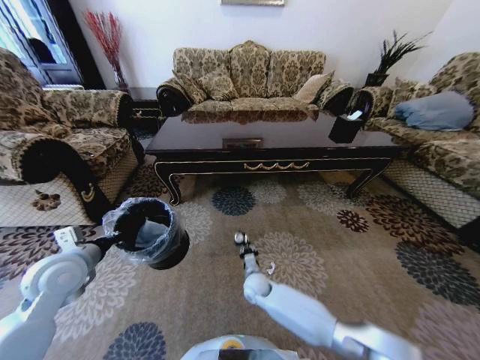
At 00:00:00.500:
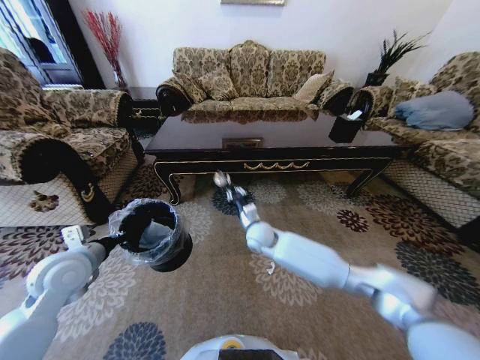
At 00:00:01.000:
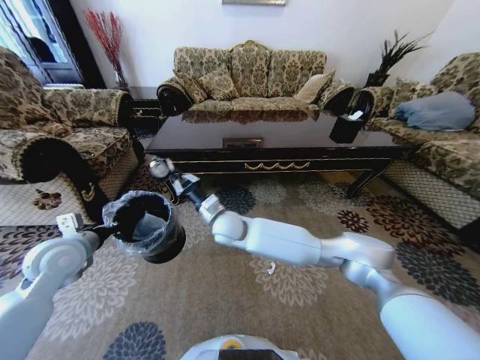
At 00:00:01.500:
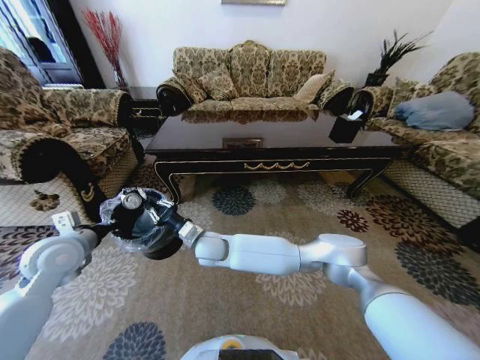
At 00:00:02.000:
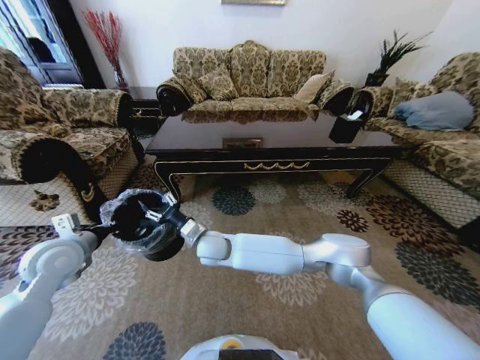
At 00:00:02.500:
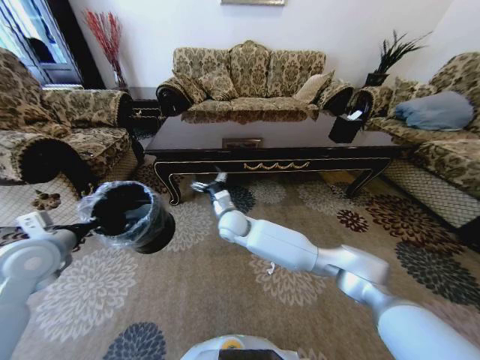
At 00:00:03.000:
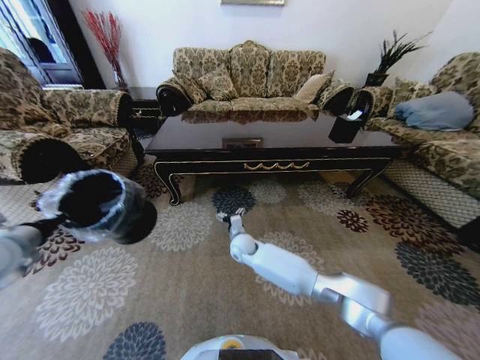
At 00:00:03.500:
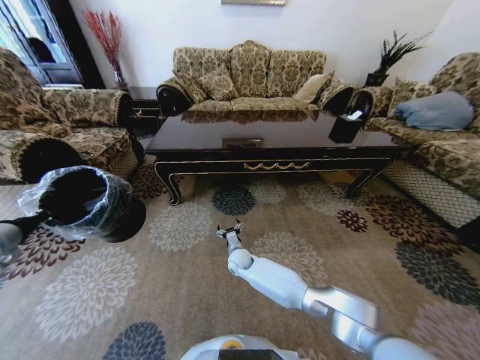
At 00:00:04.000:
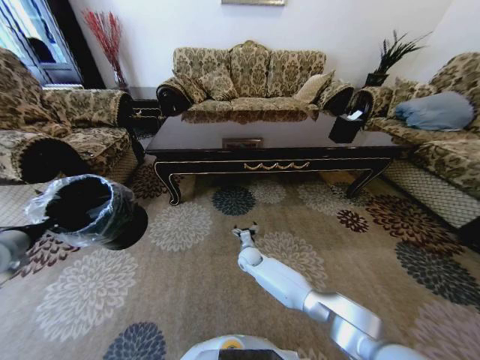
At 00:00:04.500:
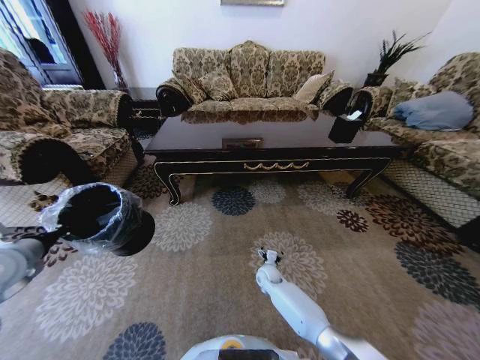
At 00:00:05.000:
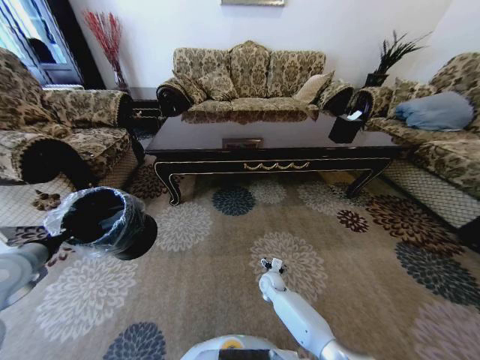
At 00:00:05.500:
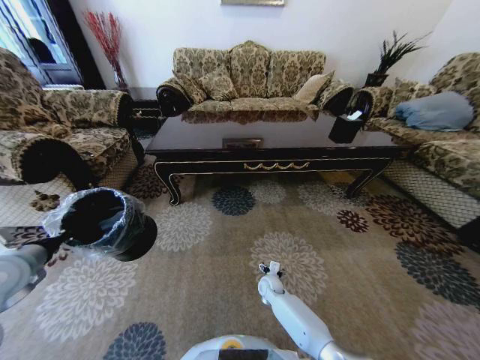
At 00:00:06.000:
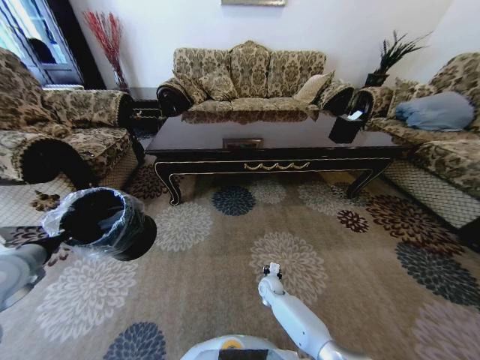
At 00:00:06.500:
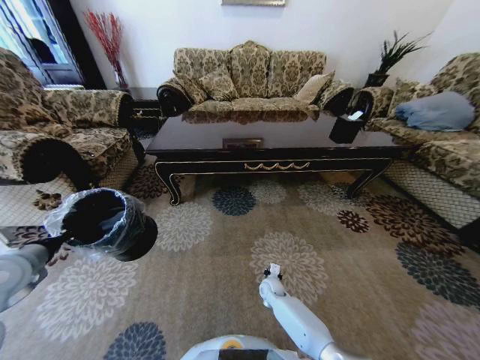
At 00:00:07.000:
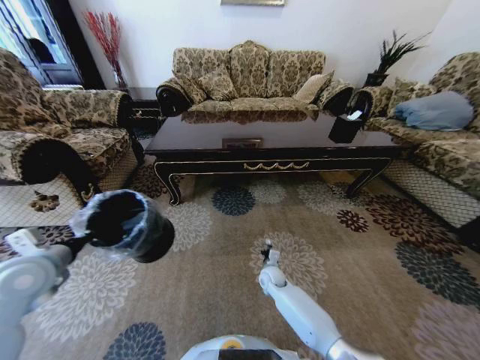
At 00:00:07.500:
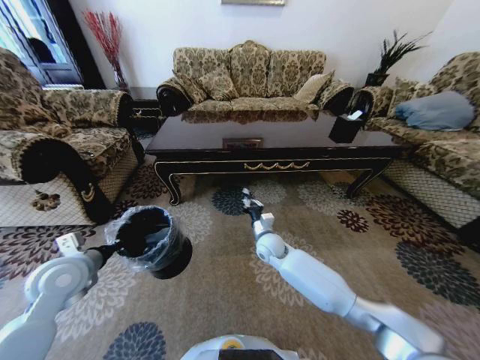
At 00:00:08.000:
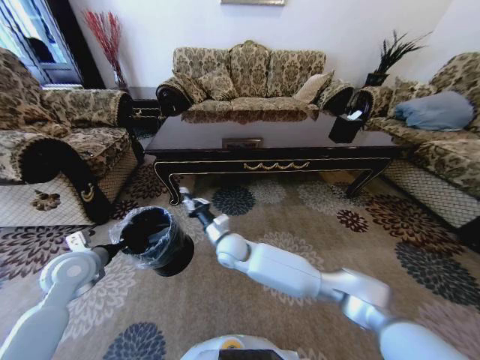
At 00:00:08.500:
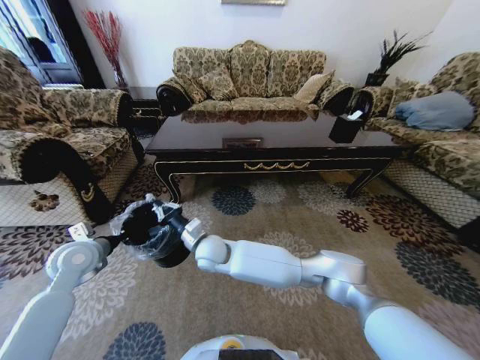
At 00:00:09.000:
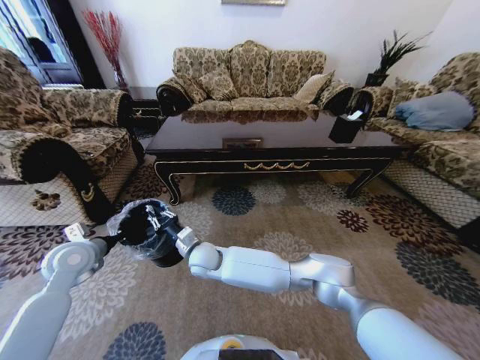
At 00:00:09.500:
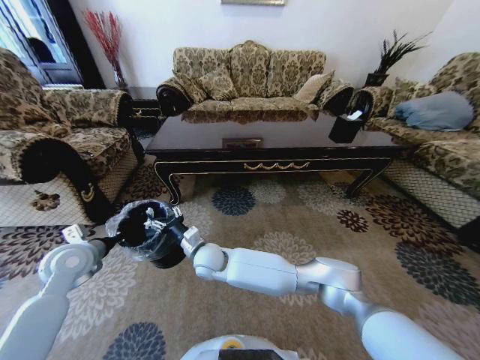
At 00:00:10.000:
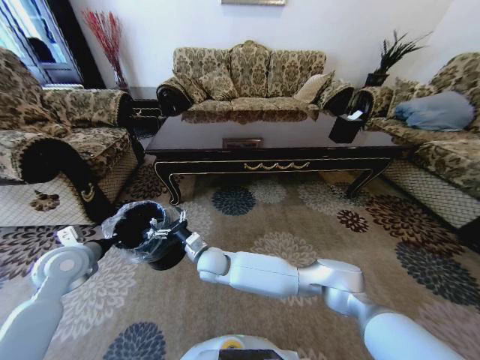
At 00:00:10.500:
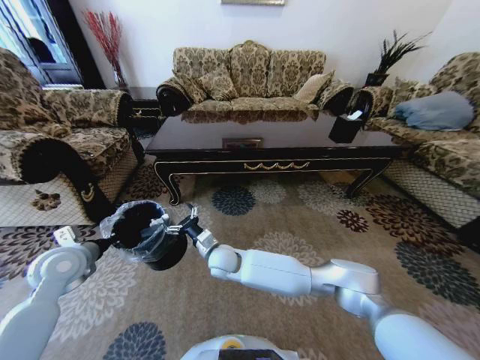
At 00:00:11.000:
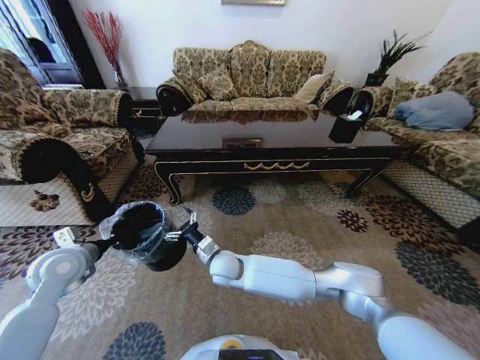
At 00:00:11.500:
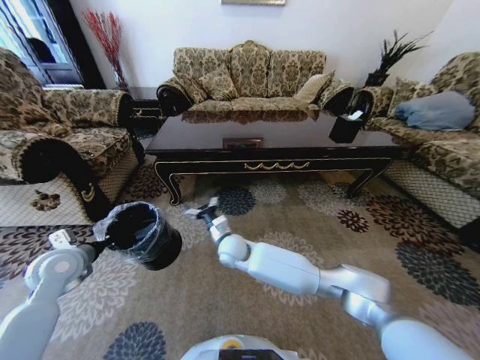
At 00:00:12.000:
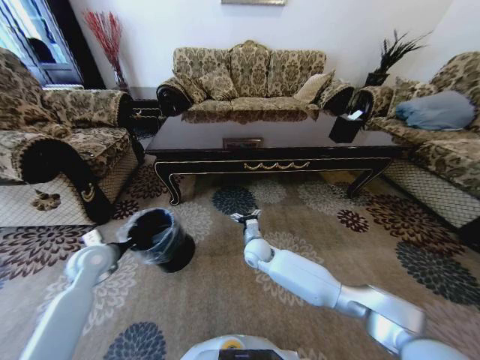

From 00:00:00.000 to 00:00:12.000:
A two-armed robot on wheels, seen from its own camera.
Task of the whole recording: Move to the front of the table and pick up the trash from the floor, then place it into the trash bin.
From 00:00:00.000 to 00:00:02.000: The right gripper shifts some 25 cm upward and to the left, and opens up.
From 00:00:02.000 to 00:00:04.000: The right gripper shifts approximately 25 cm downward and to the right, and opens its fingers. Meanwhile the left gripper moves to the left, roughly 10 cm.
From 00:00:04.000 to 00:00:06.000: The right gripper is displaced backward, downward and to the right by some 15 cm, and closes.
From 00:00:06.000 to 00:00:08.000: The left gripper goes roughly 10 cm to the right and downward, while the right gripper shifts roughly 30 cm upward and to the left, and closes its fingers.
From 00:00:08.000 to 00:00:10.000: The right gripper goes about 5 cm to the left, and opens up.
From 00:00:10.000 to 00:00:12.000: The left gripper is displaced downward by some 5 cm. The right gripper travels to the right by approximately 15 cm.

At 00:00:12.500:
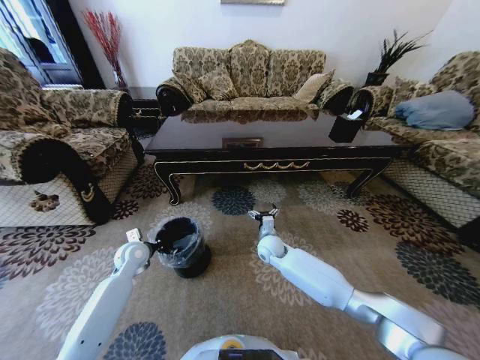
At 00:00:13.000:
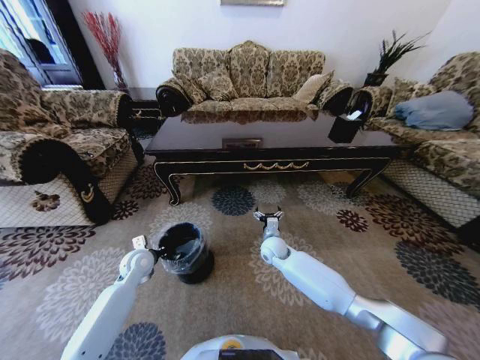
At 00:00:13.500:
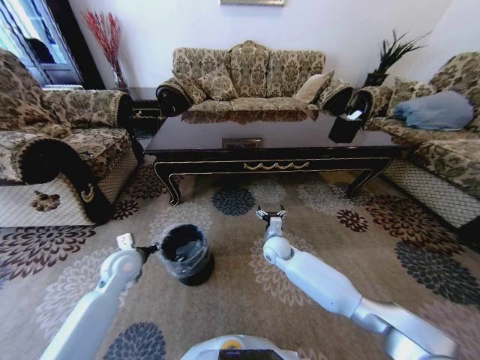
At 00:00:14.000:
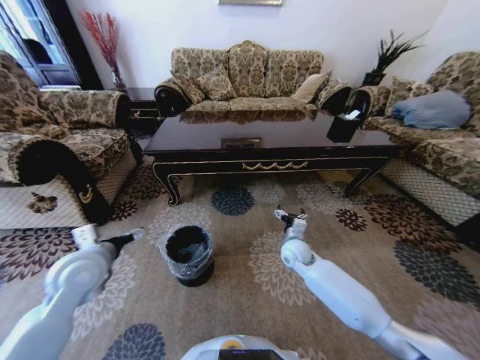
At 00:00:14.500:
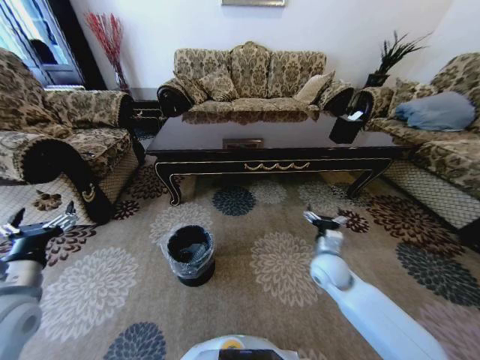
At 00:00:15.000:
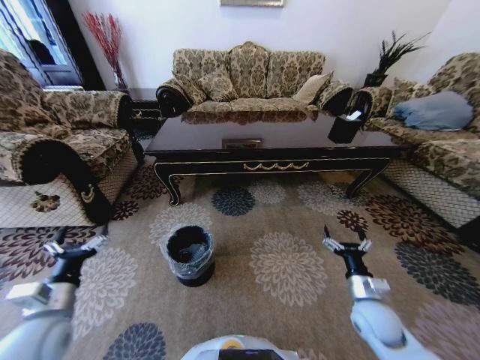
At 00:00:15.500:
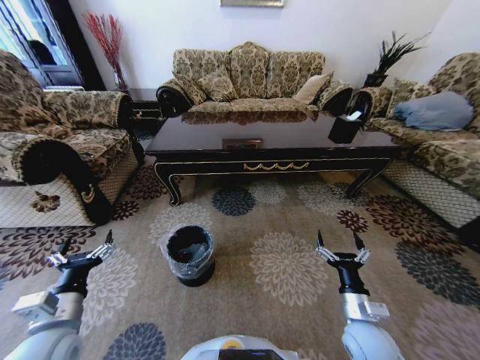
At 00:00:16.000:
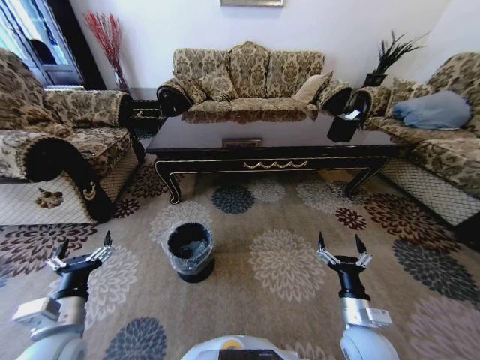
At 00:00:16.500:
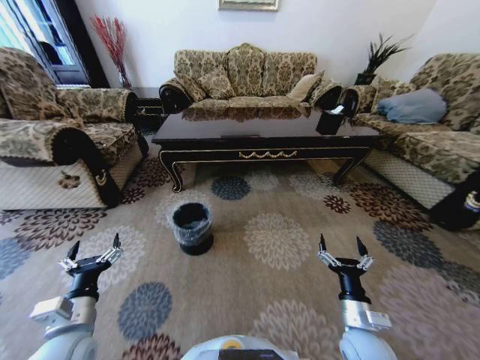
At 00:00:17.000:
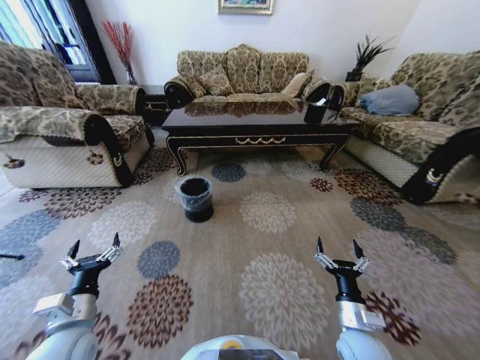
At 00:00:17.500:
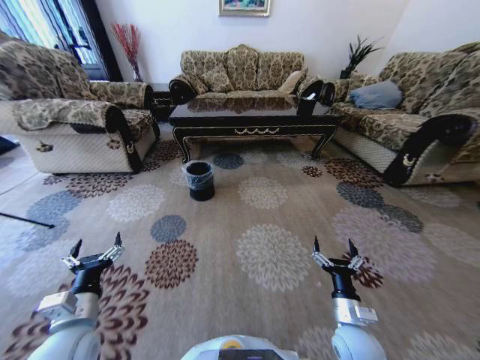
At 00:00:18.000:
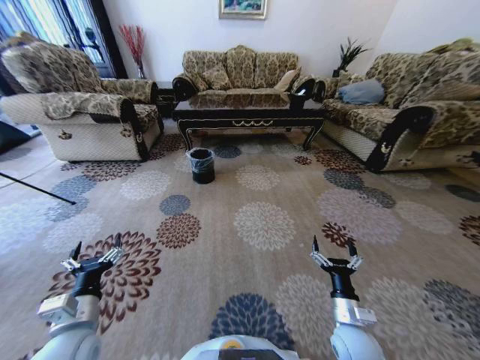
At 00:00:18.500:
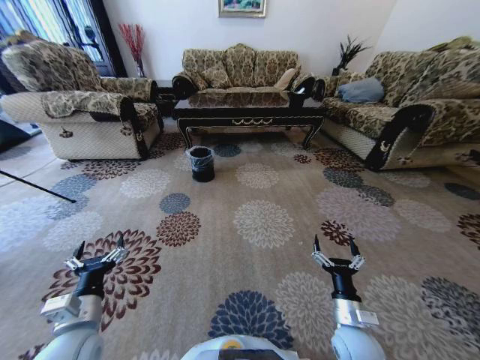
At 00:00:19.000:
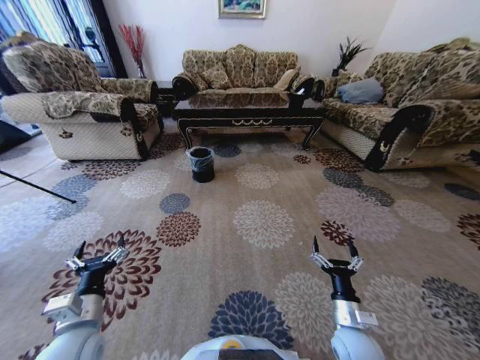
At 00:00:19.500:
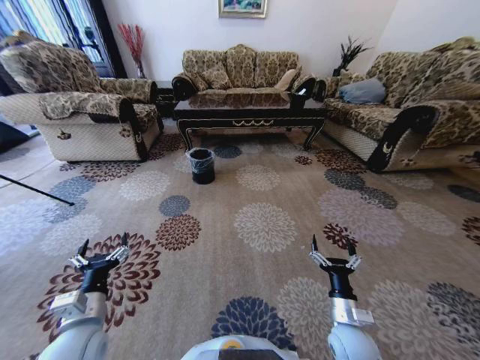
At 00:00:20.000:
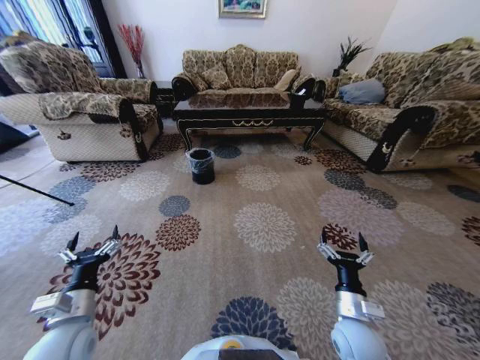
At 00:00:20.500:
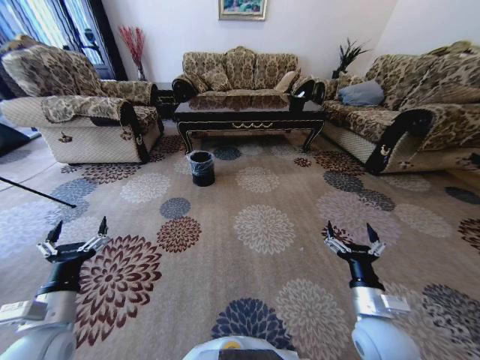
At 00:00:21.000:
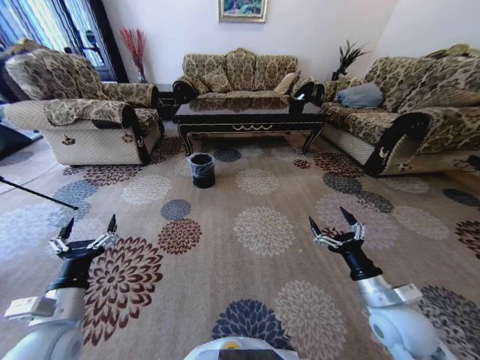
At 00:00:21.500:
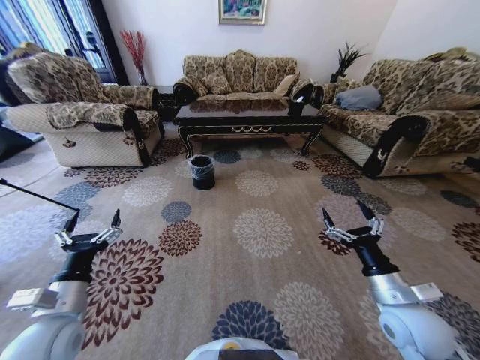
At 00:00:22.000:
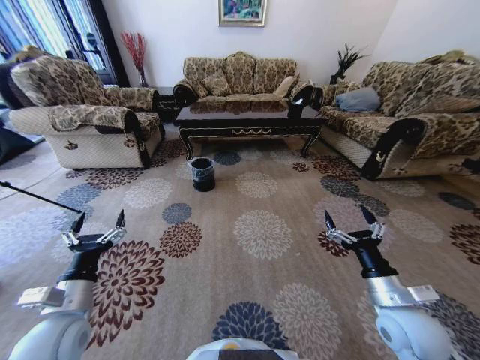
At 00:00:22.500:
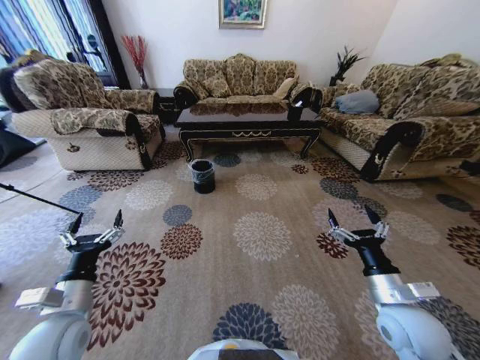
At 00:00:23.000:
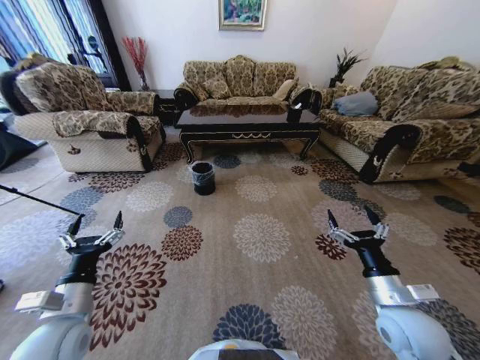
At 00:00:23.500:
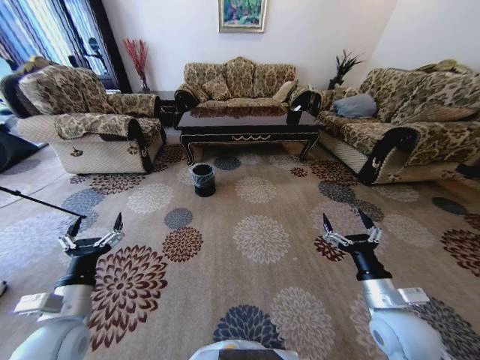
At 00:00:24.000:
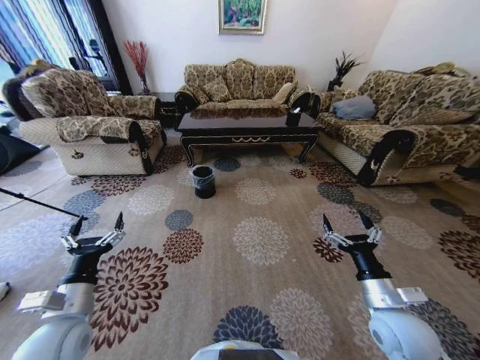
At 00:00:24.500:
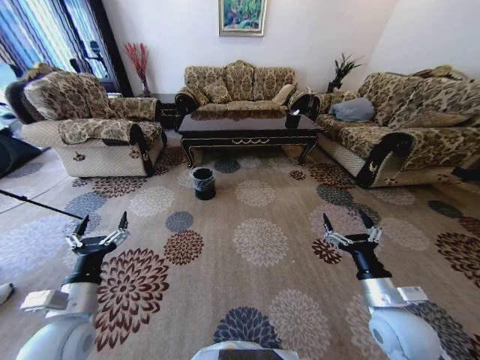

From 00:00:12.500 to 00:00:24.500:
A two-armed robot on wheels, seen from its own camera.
Task of the whole recording: Move to the front of the table and pick up the trash from the floor, then place it into the trash bin.
From 00:00:12.500 to 00:00:14.500: The left gripper is displaced backward and upward by some 25 cm, and opens its fingers. Meanwhile the right gripper shifts some 15 cm to the right, backward and upward.
From 00:00:14.500 to 00:00:16.500: The right gripper is displaced backward by about 20 cm. Meanwhile the left gripper is displaced downward and to the right by approximately 10 cm.
From 00:00:18.500 to 00:00:20.500: The right gripper moves upward, roughly 10 cm.
From 00:00:20.500 to 00:00:22.500: The right gripper shifts by approximately 5 cm.
